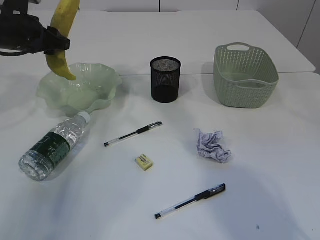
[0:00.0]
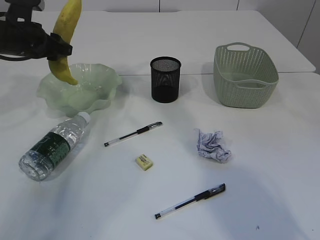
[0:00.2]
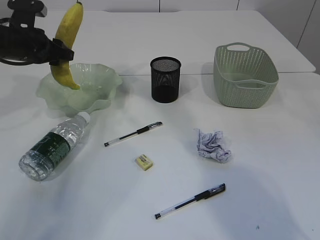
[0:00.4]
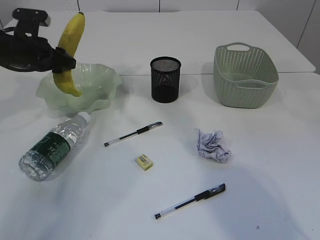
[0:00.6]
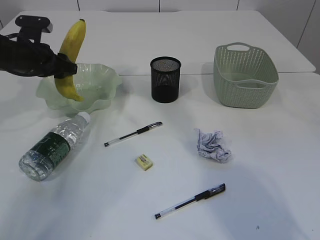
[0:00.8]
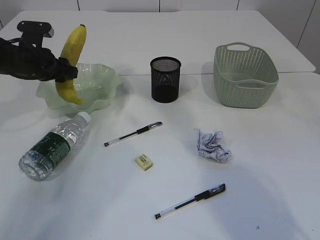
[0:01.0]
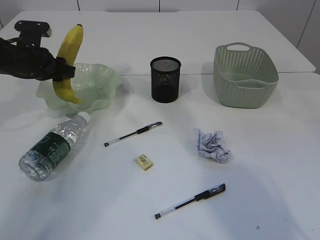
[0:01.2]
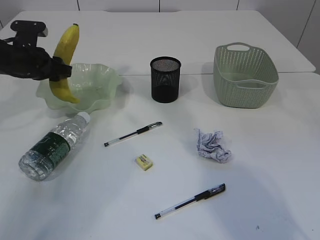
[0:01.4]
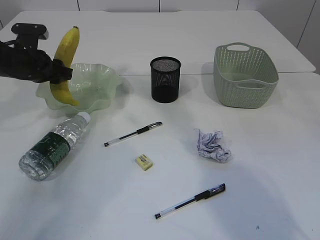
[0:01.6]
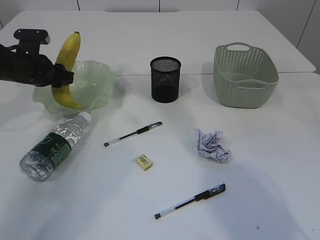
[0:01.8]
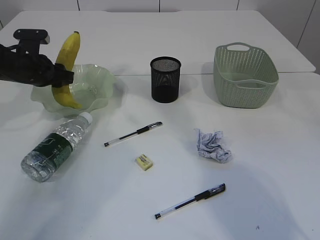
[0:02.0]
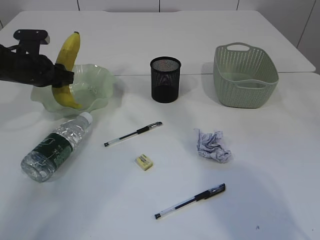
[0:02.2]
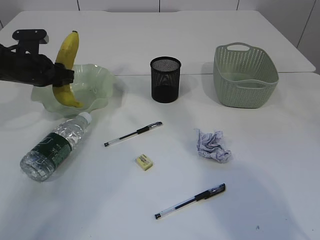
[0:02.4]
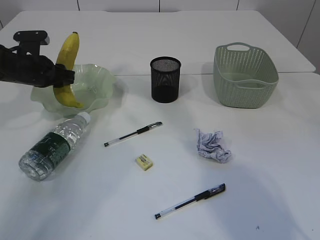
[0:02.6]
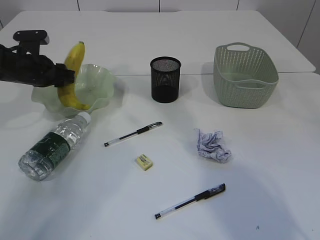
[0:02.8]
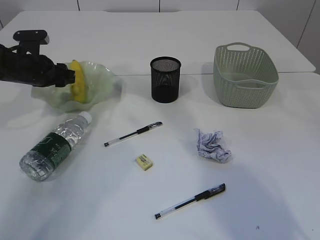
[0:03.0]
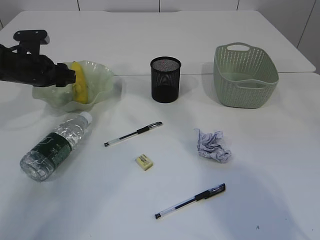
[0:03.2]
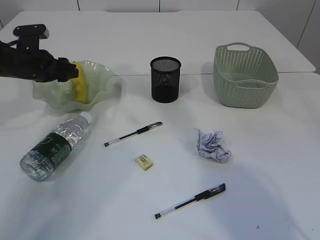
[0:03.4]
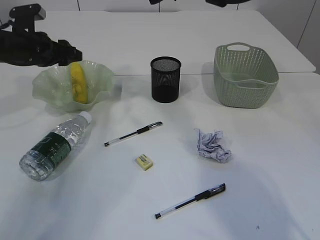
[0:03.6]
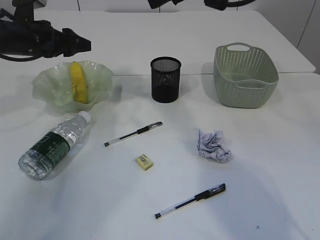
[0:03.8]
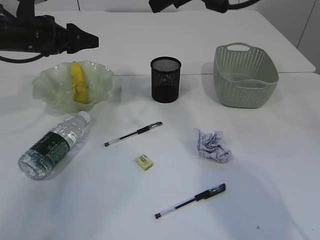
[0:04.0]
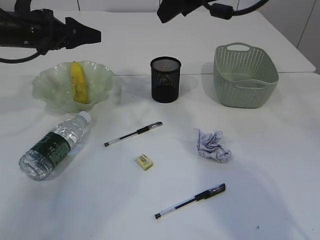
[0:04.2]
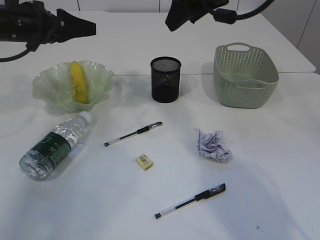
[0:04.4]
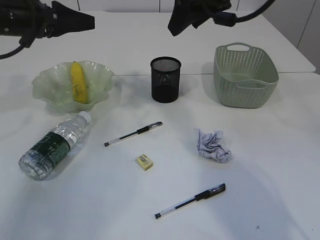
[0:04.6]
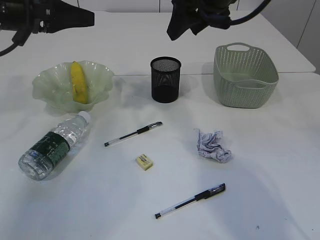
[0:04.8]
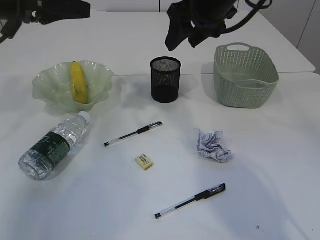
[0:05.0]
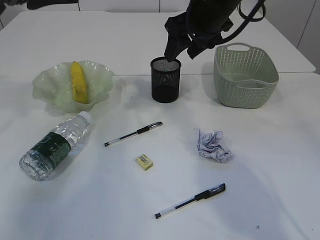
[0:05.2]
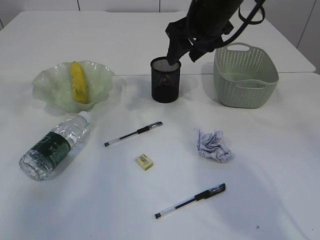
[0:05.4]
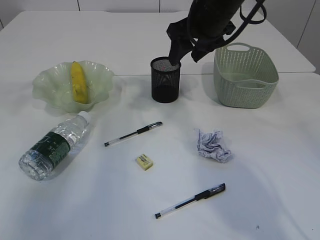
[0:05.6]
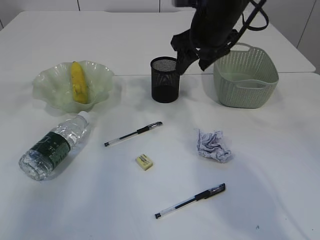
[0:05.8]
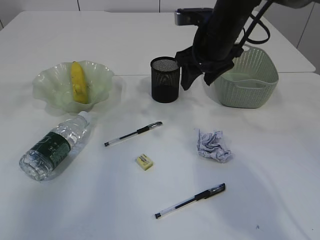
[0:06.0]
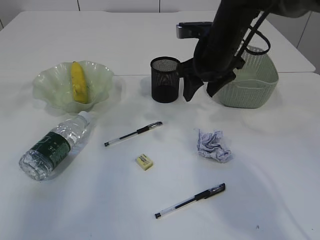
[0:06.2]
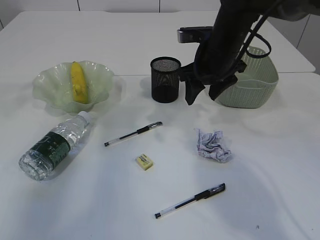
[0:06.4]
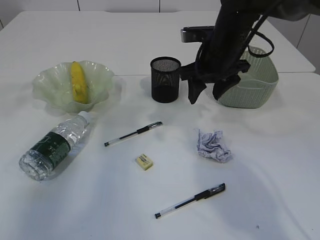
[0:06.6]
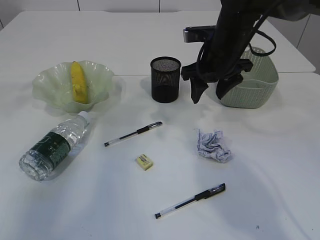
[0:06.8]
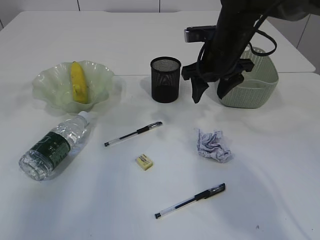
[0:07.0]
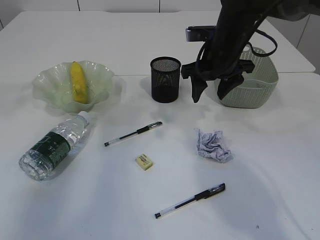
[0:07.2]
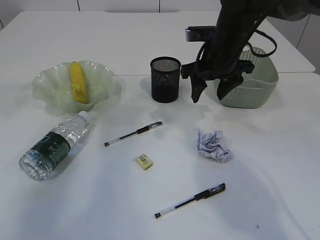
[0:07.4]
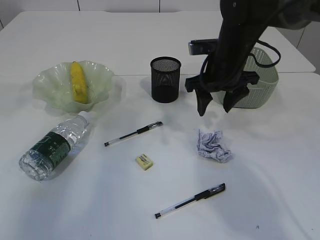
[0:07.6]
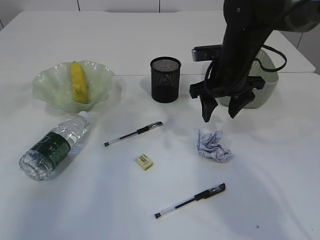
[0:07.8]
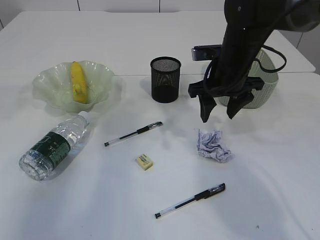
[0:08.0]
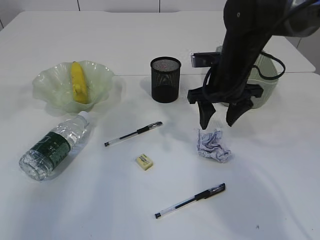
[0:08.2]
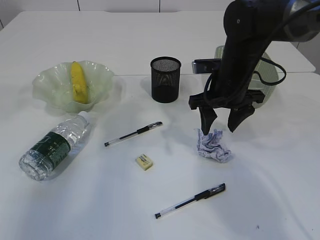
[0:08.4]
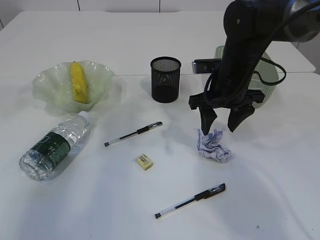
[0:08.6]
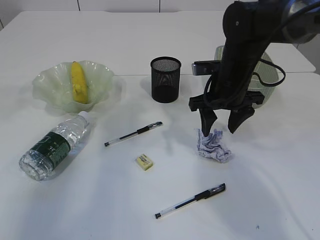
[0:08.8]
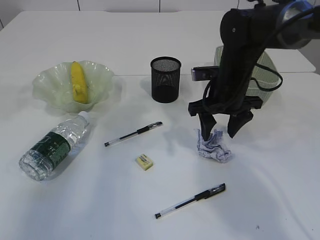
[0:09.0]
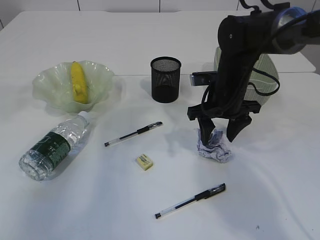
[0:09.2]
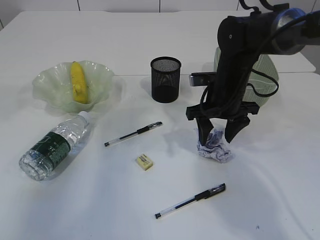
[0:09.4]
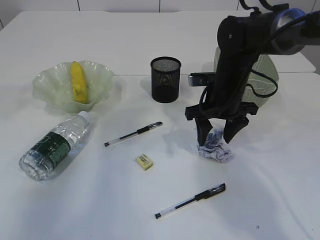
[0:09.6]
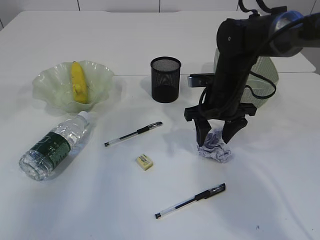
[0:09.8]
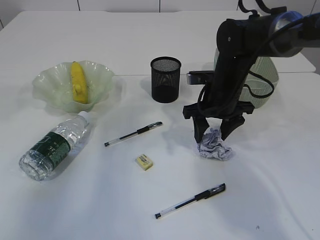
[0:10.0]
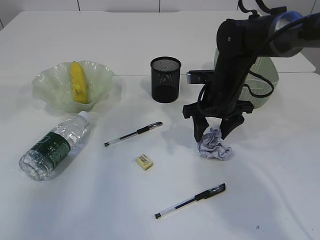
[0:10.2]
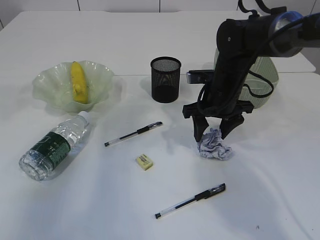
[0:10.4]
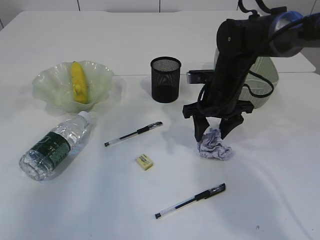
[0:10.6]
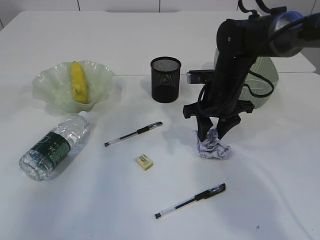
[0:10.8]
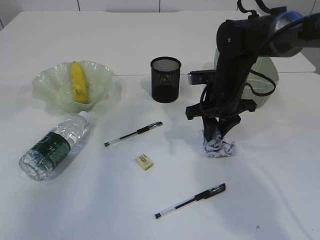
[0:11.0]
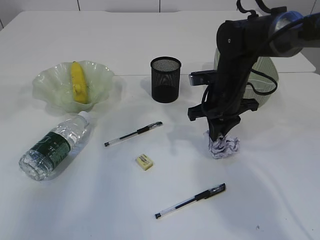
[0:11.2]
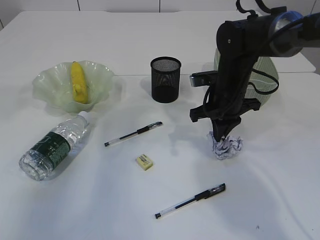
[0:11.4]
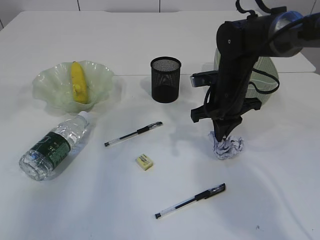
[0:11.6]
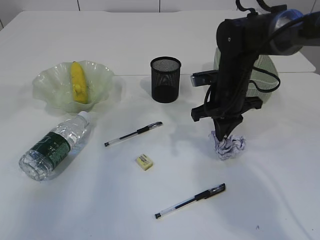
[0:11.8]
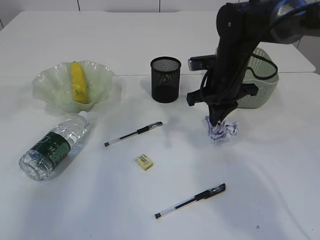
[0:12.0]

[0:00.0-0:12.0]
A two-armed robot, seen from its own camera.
Step, 0:00.0 to 0:03.8: Place the banana in the plate.
0:00.0 to 0:01.6: The left gripper shifts roughly 5 cm downward.
0:01.6 to 0:03.0: The grippers stay close to where they were, moving slightly.
0:03.0 to 0:04.4: The left gripper shifts about 10 cm upward.
0:04.4 to 0:06.0: The left gripper goes about 15 cm upward and backward, while the right gripper heads downward, covering approximately 10 cm.
0:06.0 to 0:07.6: The grippers make only small movements.
0:07.6 to 0:10.4: The grippers move only a little.
0:10.4 to 0:12.0: The right gripper closes.

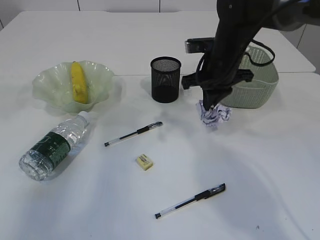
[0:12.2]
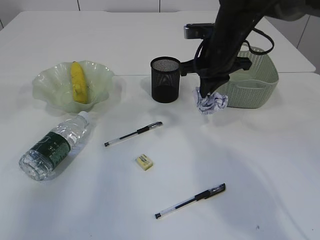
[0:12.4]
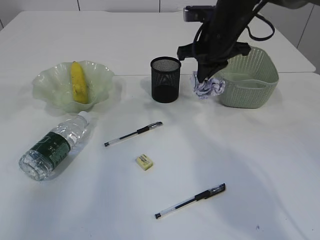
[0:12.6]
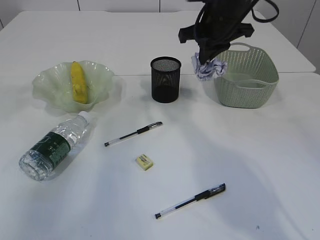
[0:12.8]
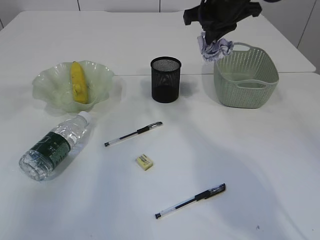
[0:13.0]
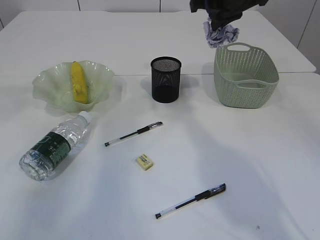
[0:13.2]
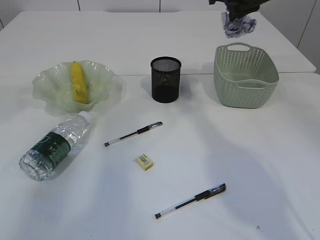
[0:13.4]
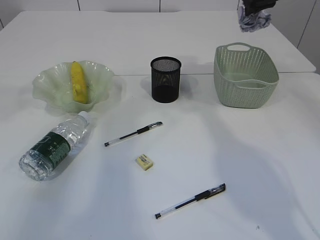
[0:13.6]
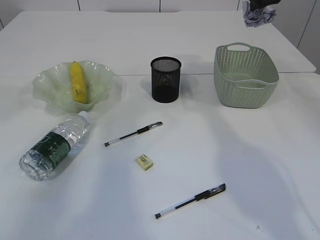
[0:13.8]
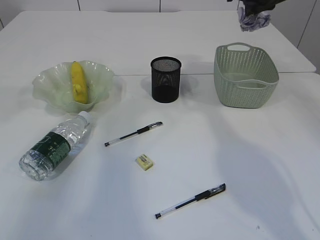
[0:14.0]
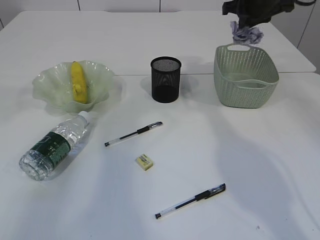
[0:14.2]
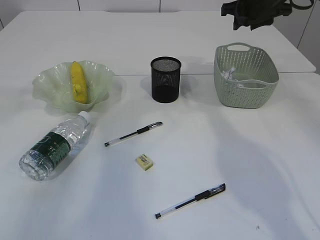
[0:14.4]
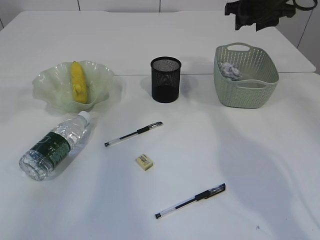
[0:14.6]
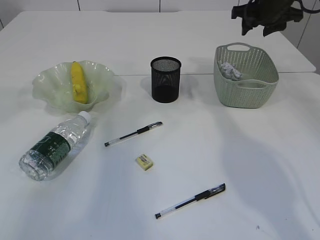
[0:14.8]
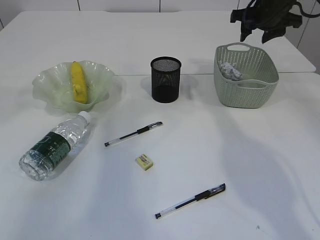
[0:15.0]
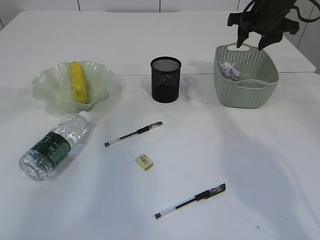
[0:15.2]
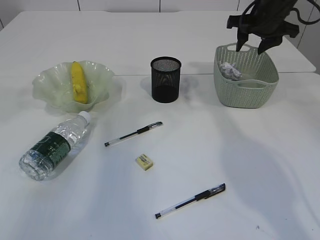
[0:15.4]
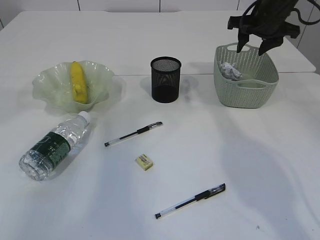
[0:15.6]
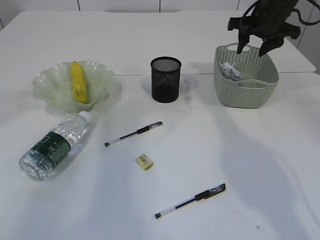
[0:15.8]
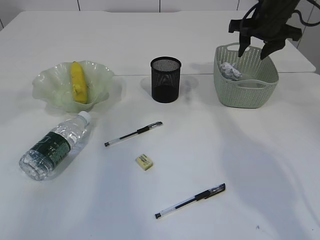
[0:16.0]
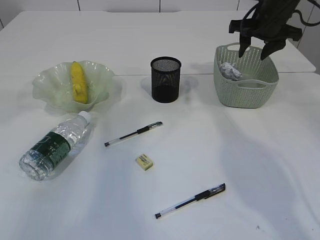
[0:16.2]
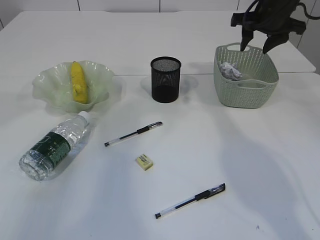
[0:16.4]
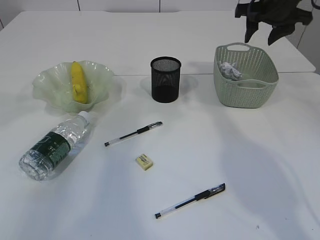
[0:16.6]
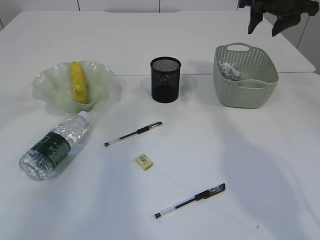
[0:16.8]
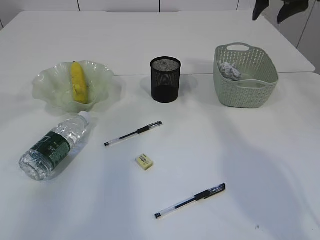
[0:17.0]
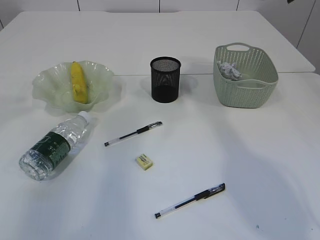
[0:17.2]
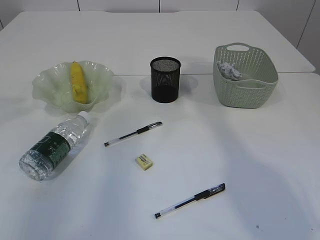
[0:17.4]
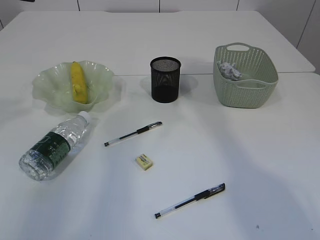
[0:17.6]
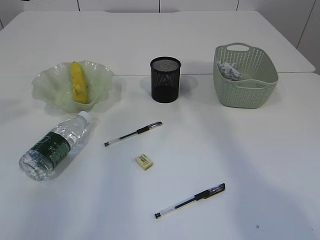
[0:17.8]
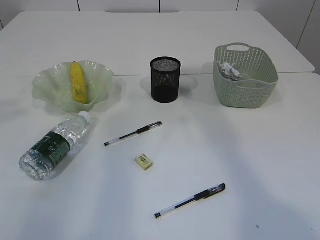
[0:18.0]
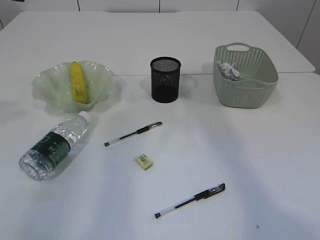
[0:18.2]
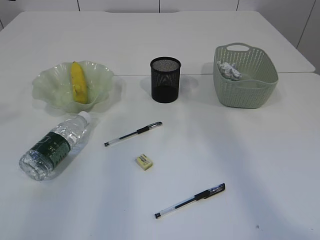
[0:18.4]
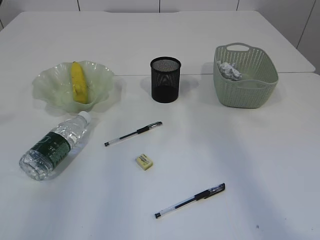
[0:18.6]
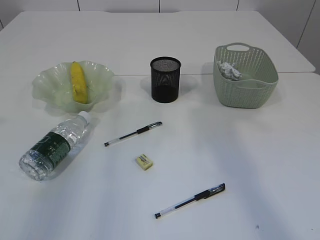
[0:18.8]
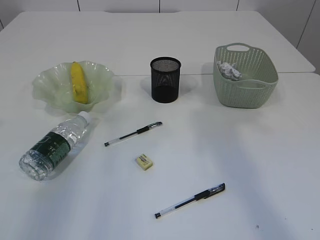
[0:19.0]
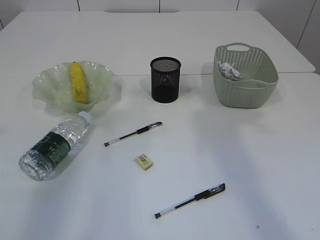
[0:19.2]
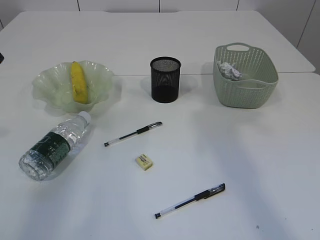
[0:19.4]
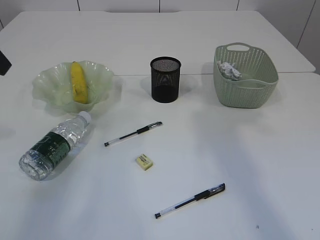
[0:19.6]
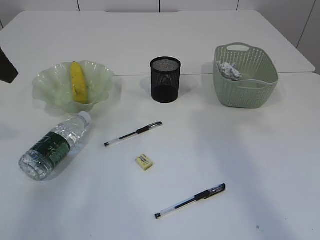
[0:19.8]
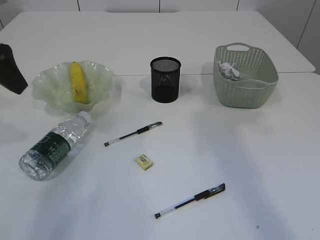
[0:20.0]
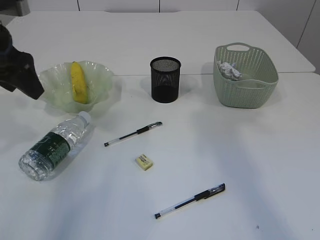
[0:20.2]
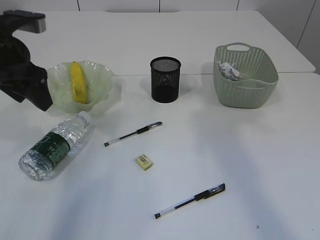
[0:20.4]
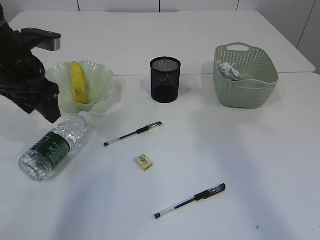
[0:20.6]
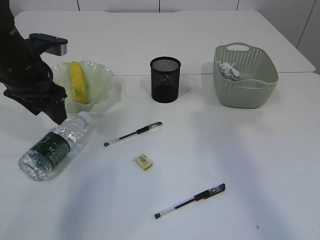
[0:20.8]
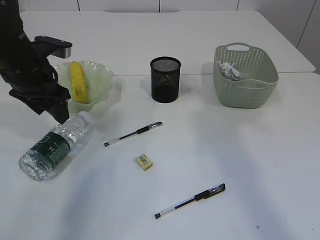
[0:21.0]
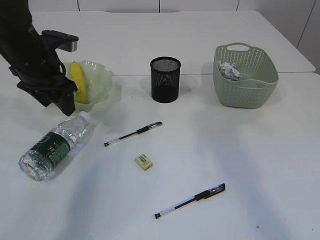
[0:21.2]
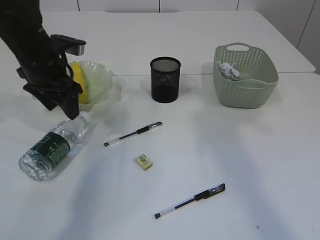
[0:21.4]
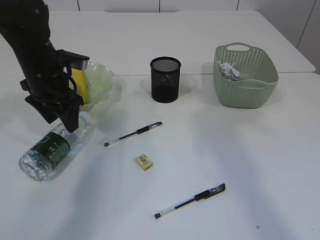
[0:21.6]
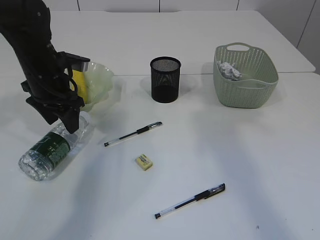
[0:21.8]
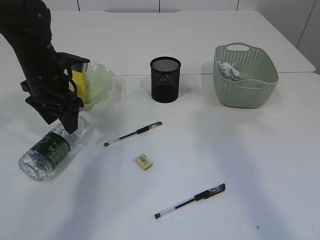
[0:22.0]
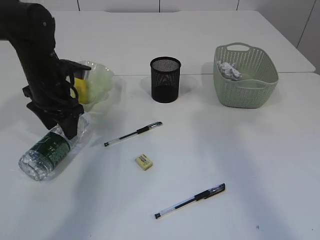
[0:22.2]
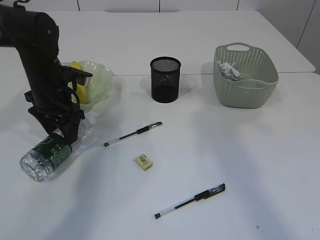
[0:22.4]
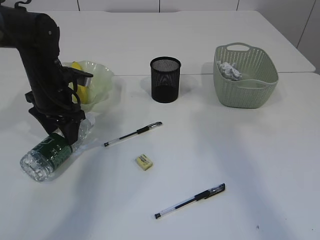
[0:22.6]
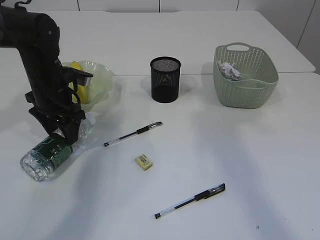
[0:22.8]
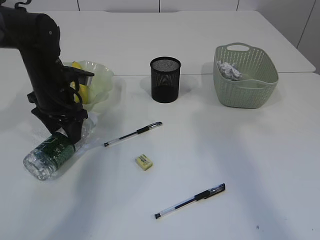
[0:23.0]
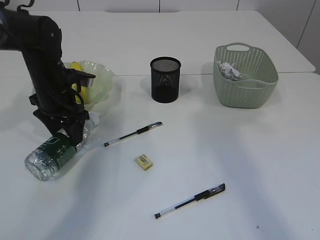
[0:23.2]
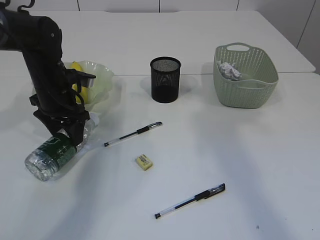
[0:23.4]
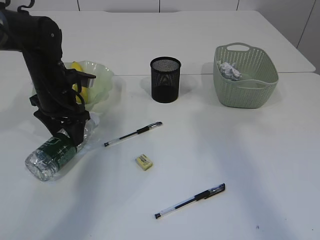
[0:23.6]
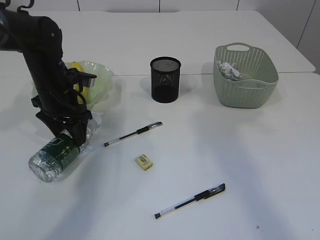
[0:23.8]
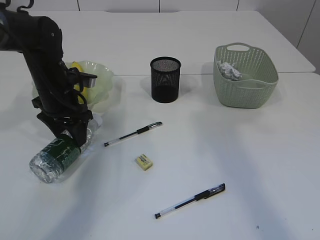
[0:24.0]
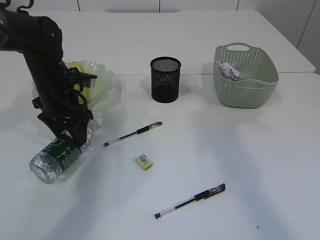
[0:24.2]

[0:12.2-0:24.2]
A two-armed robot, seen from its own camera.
Step, 0:12.4 to 0:14.4: Place the waste paper in the basket.
0:12.2 to 0:13.8: The right gripper moves upward, to the right and forward, some 15 cm.
0:13.8 to 0:15.2: The right gripper heads downward, covering roughly 5 cm, and opens up.
0:15.2 to 0:16.6: The grippers move only a little.
0:16.6 to 0:18.2: The right gripper is displaced backward and upward by about 20 cm.
0:18.2 to 0:19.8: The left gripper is displaced downward by approximately 5 cm.
0:19.8 to 0:21.2: The left gripper moves downward, forward and to the right, roughly 15 cm.
0:21.2 to 0:22.6: The left gripper shifts approximately 5 cm downward.
0:22.6 to 0:24.2: The grippers move only a little.
